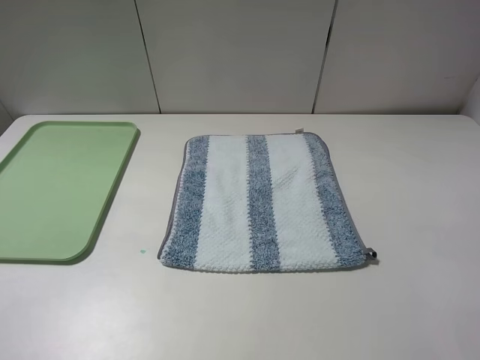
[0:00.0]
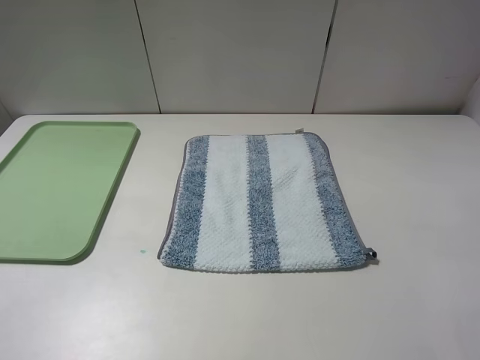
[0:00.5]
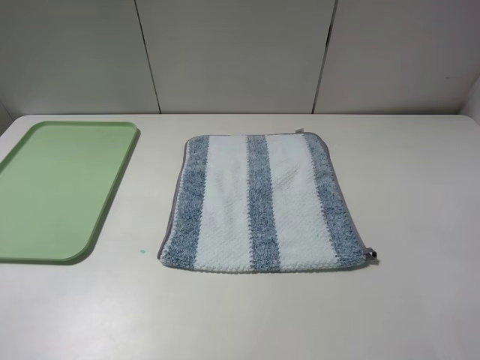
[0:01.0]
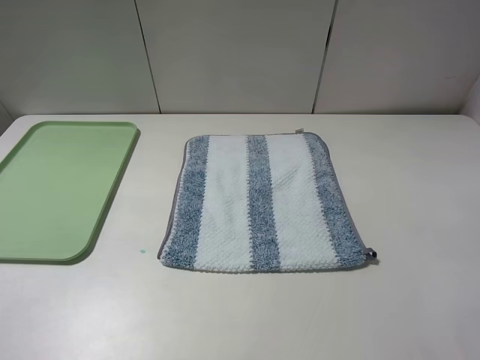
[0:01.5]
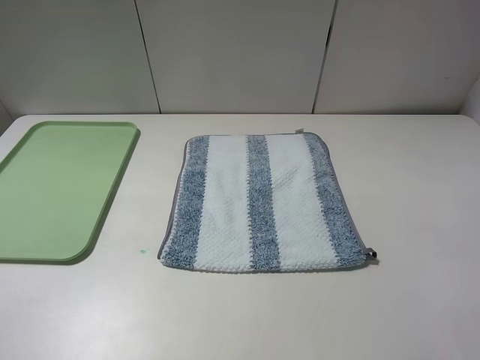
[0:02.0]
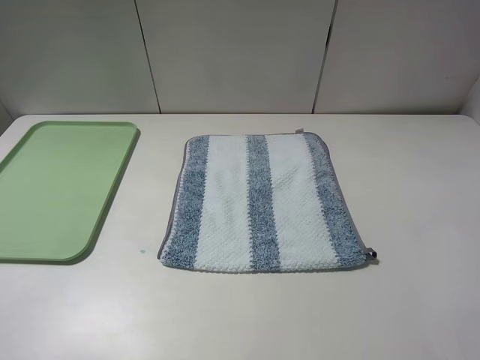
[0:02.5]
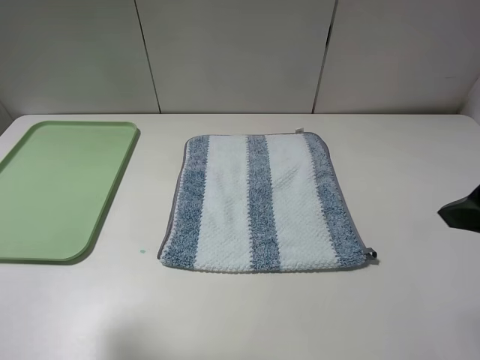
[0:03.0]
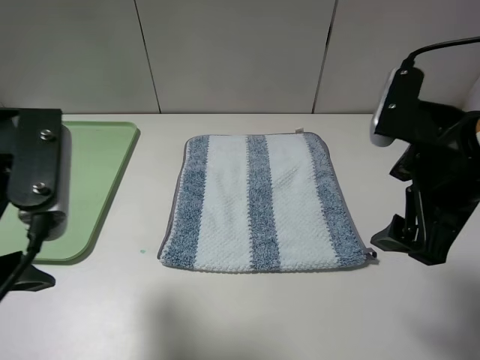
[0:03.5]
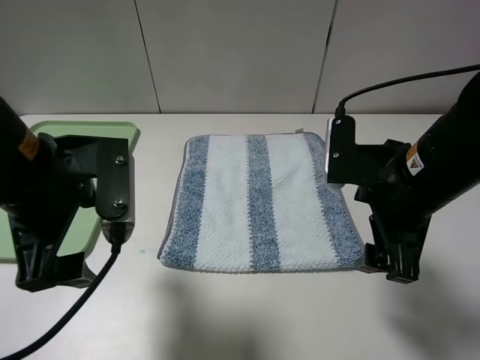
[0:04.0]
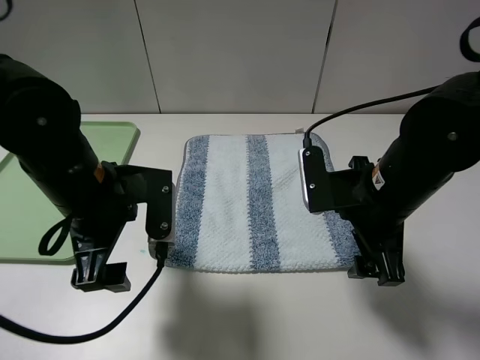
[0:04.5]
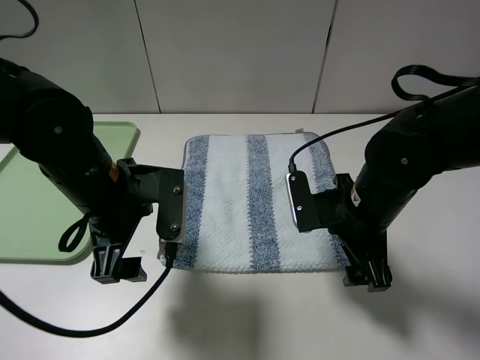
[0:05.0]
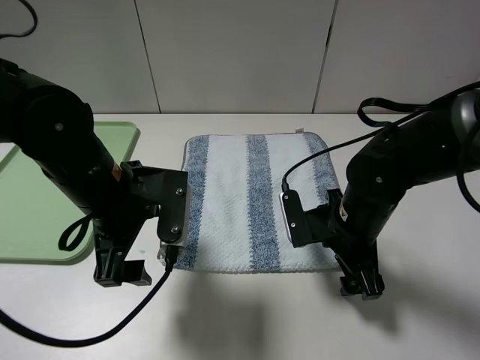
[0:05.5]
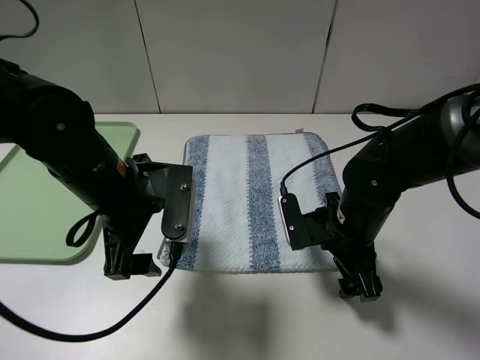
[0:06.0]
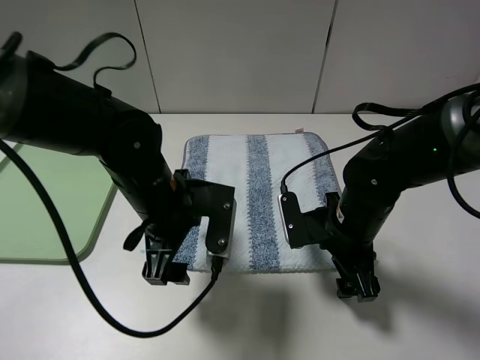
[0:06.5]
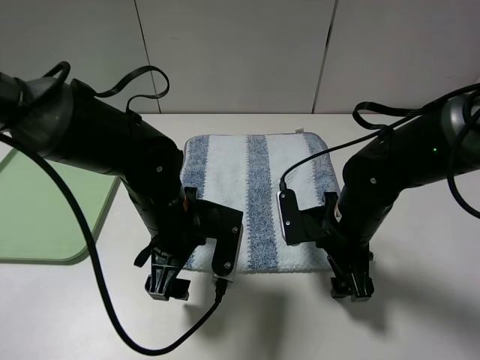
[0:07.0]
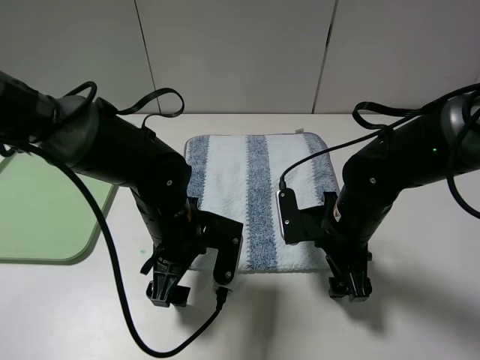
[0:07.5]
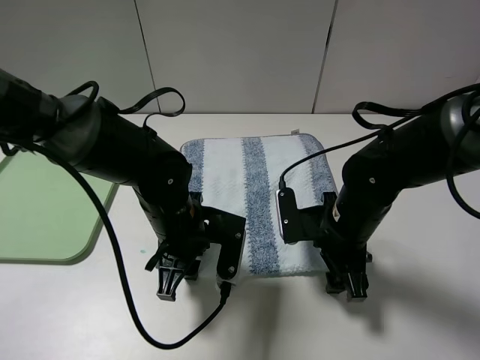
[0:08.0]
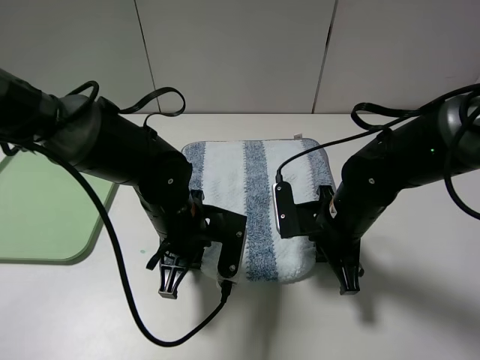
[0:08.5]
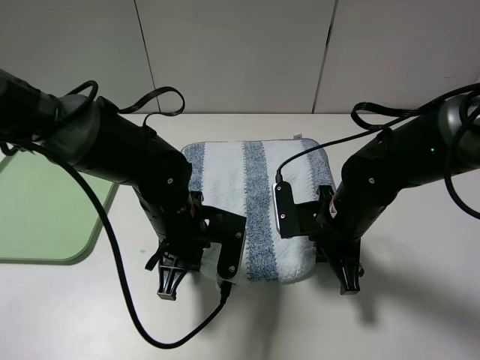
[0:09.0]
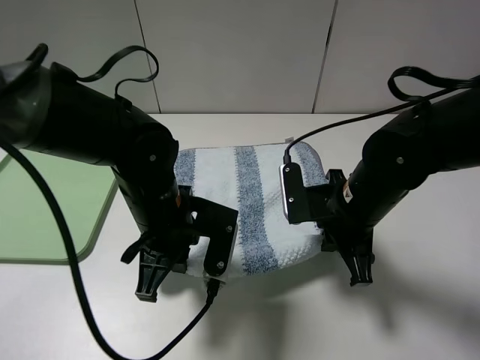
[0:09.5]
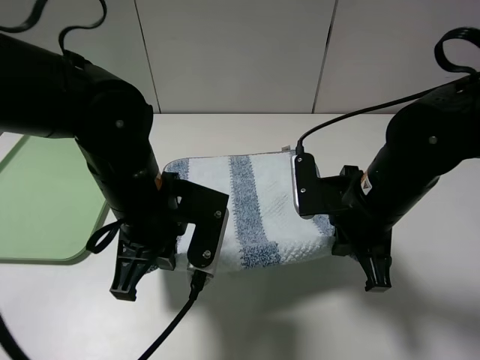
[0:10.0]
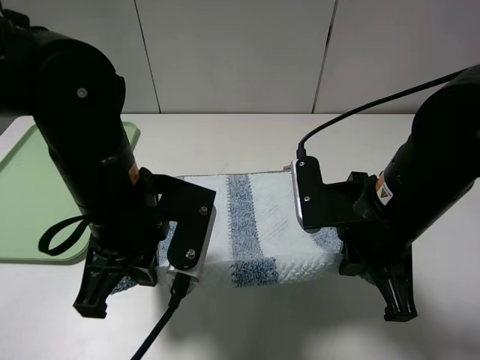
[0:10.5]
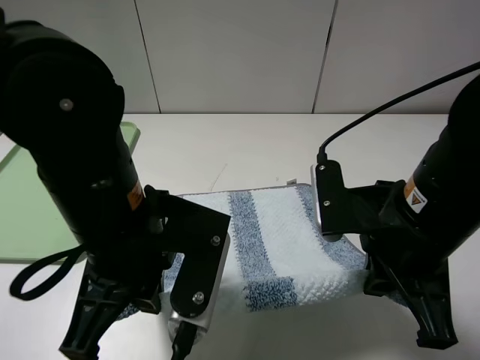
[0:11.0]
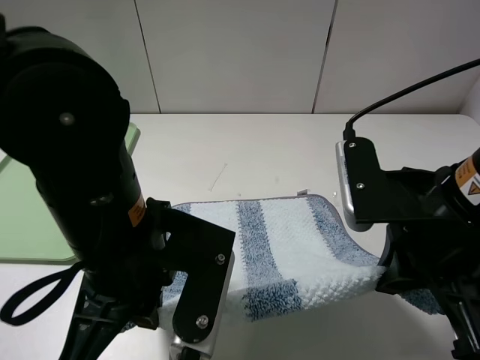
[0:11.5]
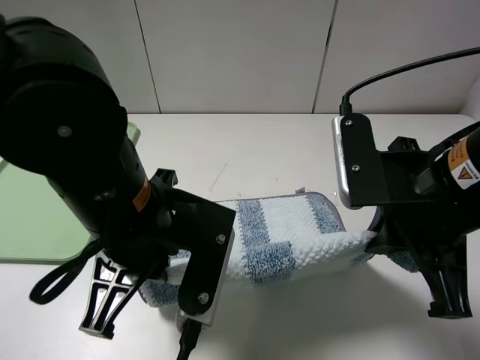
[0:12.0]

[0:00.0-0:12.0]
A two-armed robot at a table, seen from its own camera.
Step, 0:00.0 to 0:09.0: Grasp the blue white towel with the left gripper.
0:00.0 to 0:02.0: Both grippers stay about where they are.
0:02.0 to 0:04.0: The right gripper is displaced forward and to the left by roughly 25 cm. The left gripper goes some 20 cm forward and to the right.
0:04.0 to 0:06.0: The right gripper goes some 10 cm downward. The left gripper is displaced downward by approximately 5 cm.
0:06.0 to 0:08.0: The left gripper heads downward and to the right, covering roughly 10 cm, and closes its fingers.
0:08.0 to 0:10.0: Both grippers travel together upward, roughly 10 cm. The right gripper closes its fingers.
0:10.0 to 0:12.0: The left gripper shifts by about 5 cm. Meanwhile the right gripper moves upward and backward, some 10 cm.

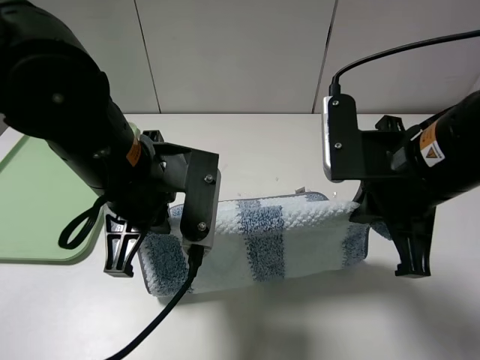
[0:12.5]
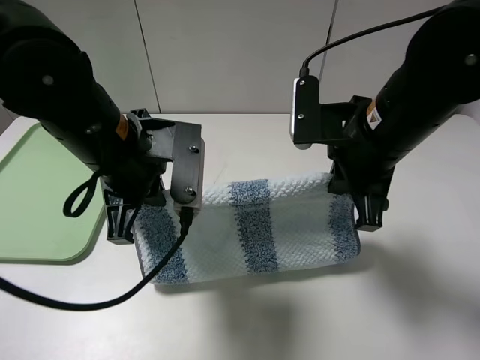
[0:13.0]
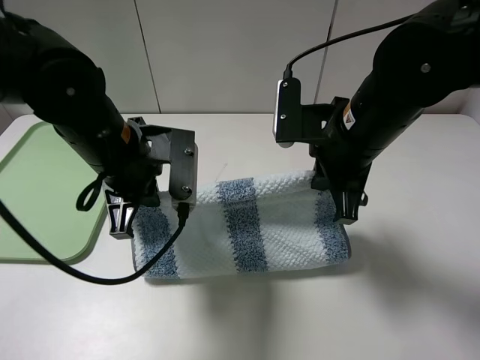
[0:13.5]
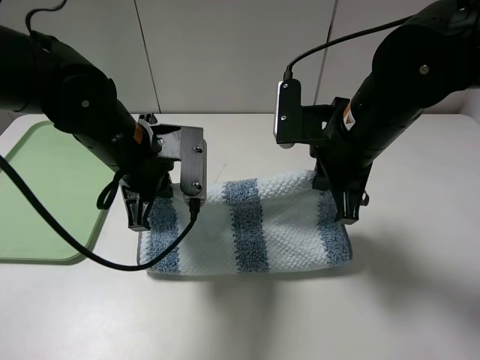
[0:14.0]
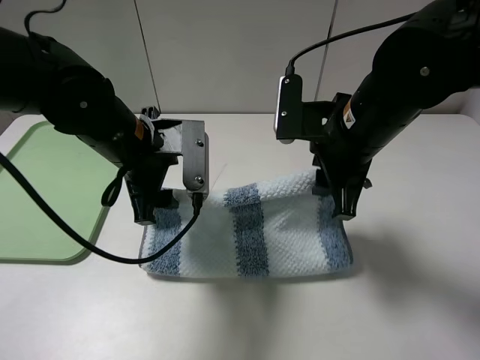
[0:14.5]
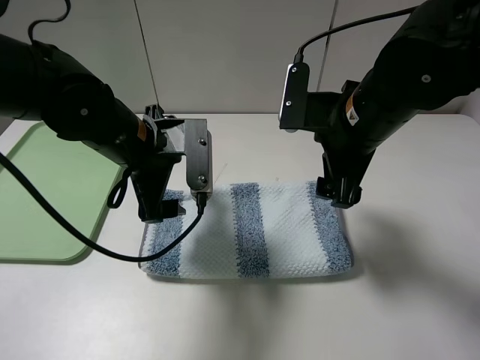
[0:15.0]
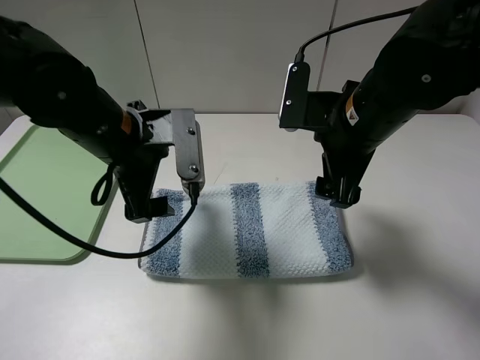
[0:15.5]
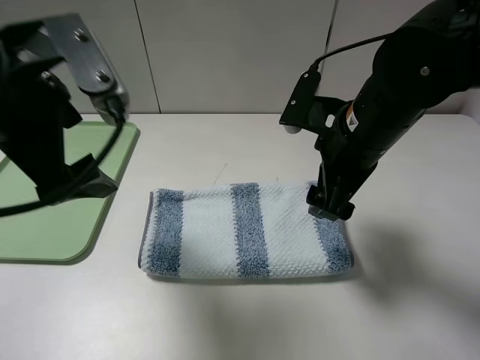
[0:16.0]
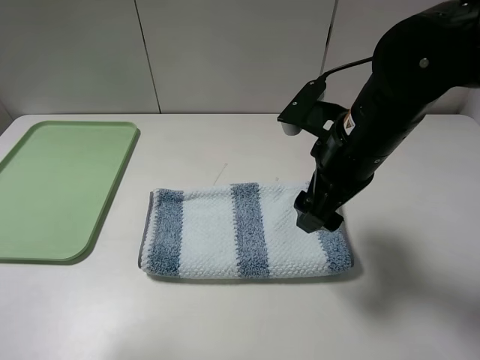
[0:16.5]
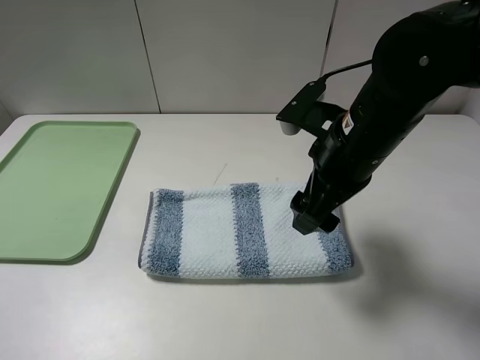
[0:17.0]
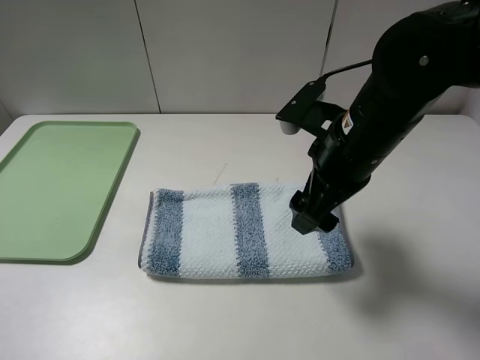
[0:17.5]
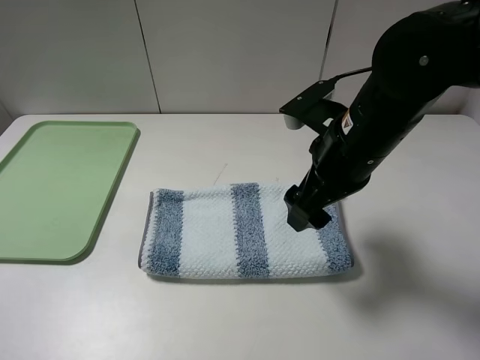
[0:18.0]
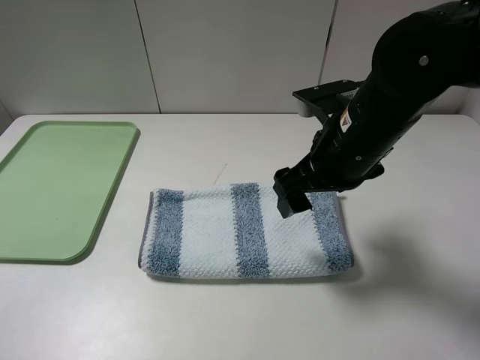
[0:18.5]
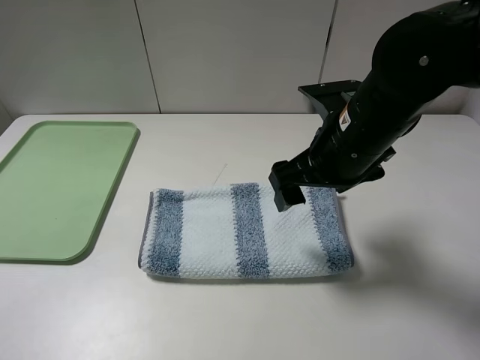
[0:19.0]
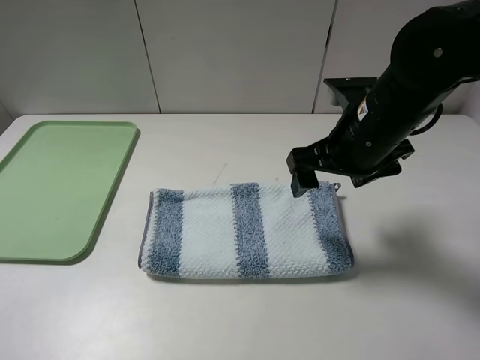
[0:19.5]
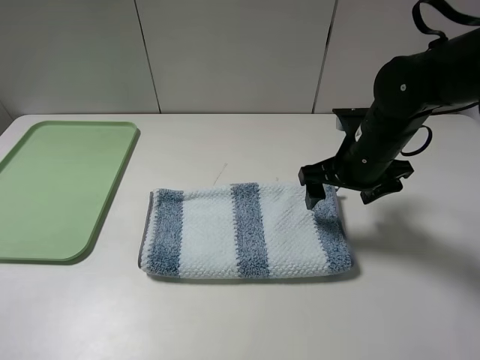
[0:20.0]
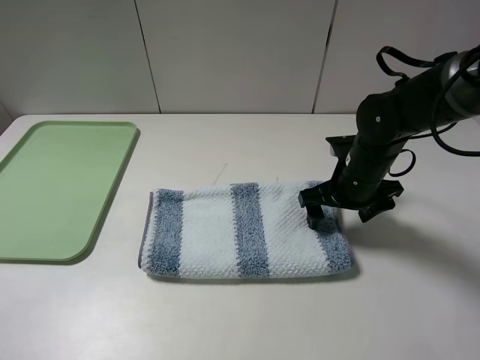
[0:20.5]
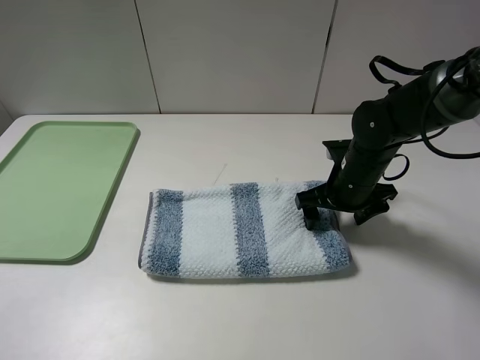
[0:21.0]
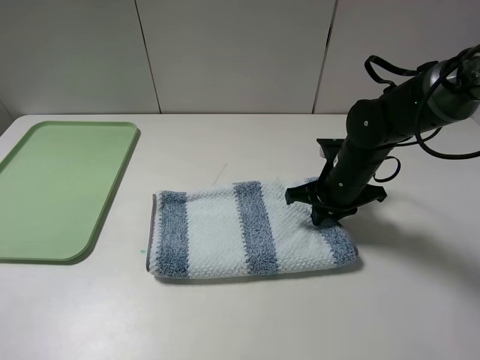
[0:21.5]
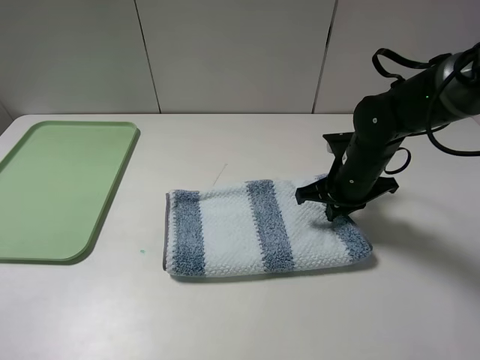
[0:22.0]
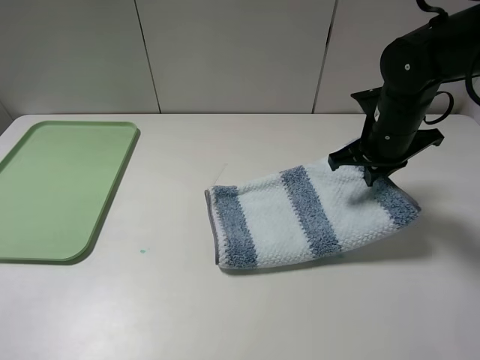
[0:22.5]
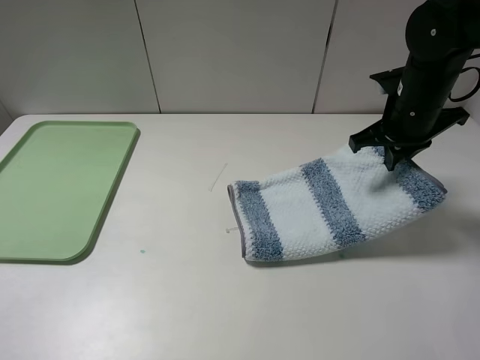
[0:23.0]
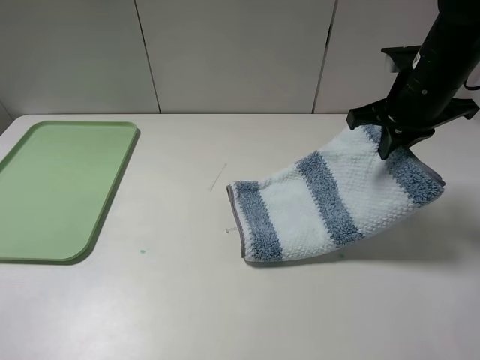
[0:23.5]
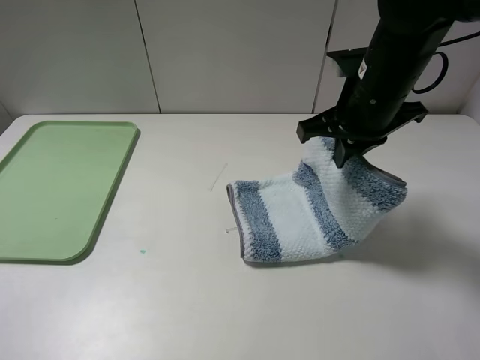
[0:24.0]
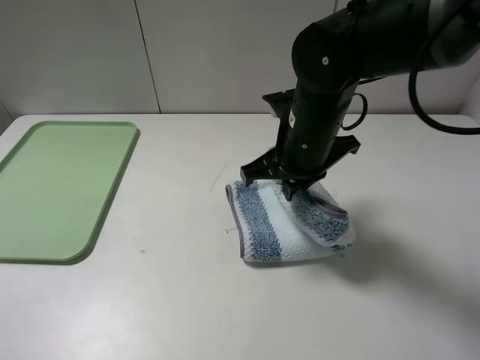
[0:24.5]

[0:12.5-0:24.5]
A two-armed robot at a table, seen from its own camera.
Step, 0:12.5 to 0:15.5: Fold the blue white towel upwards with the left gripper.
Step, 0:16.0 to 0:22.0: Grasp the blue white towel with the right gripper.
0:12.5 to 0:14.5: Both grippers move forward, some 5 cm. The left gripper opens. Meanwhile the right gripper opens.
0:14.5 to 0:16.5: The left gripper shifts some 30 cm backward, upward and to the left.
0:16.5 to 0:18.5: The left gripper shifts roughly 10 cm downward and backward.
0:18.5 to 0:20.5: The right gripper goes some 15 cm downward, forward and to the right.
0:20.5 to 0:22.5: The right gripper heads upward, covering roughly 5 cm, and closes.
0:22.5 to 0:24.5: The right gripper travels to the left and backward by roughly 15 cm.

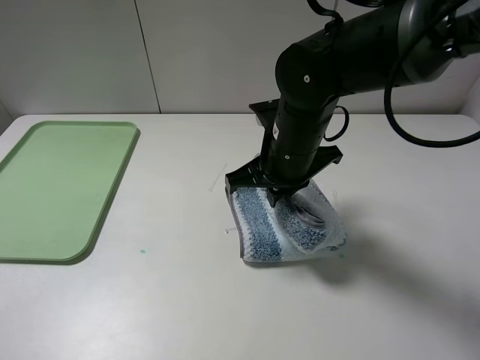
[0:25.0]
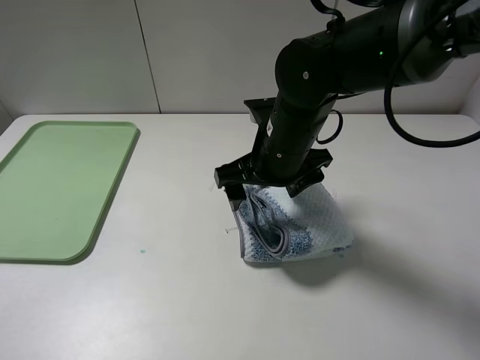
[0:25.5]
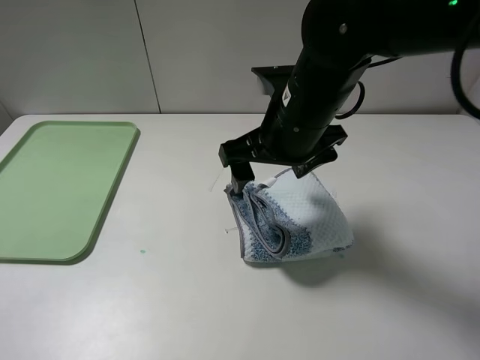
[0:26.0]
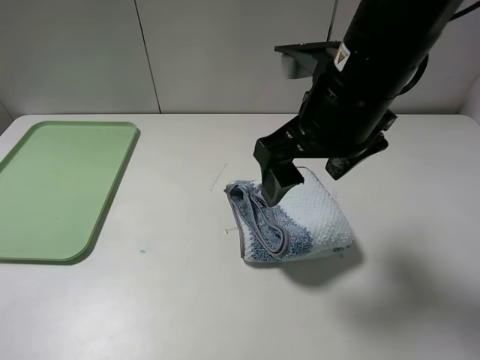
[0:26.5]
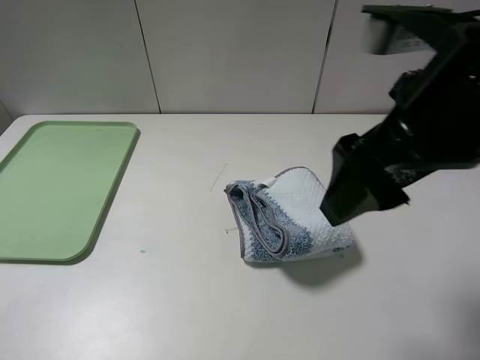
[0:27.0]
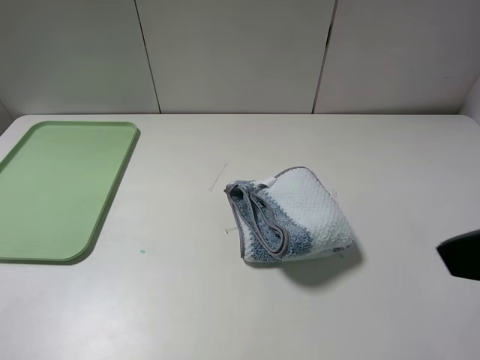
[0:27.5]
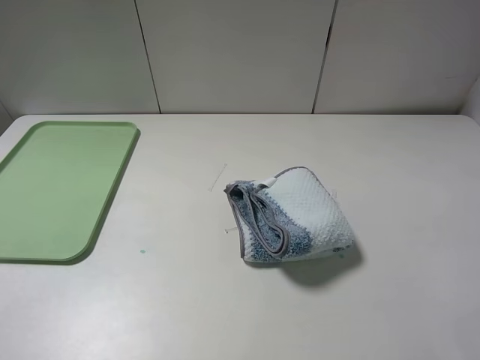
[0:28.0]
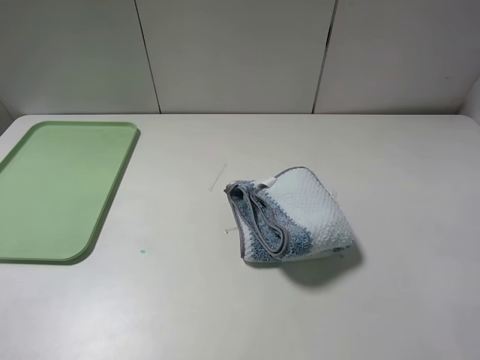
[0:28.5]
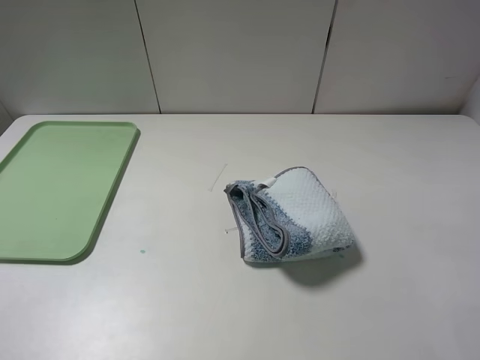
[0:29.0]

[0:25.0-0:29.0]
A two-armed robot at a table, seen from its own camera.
0:25.0 to 0:27.0: The right gripper heads upward, backward and to the right, covering about 20 cm, and opens.
0:27.0 to 0:29.0: The right gripper travels to the right and backward by approximately 20 cm.
